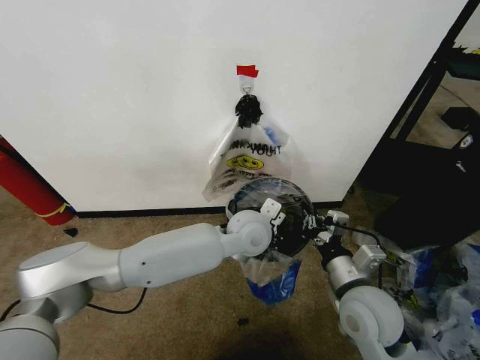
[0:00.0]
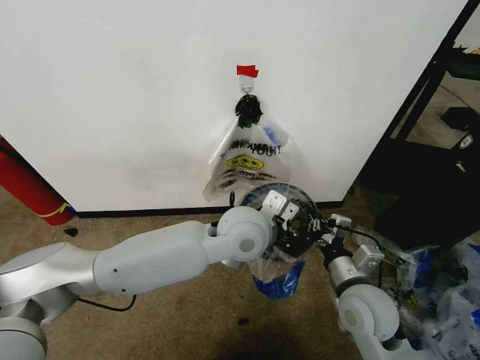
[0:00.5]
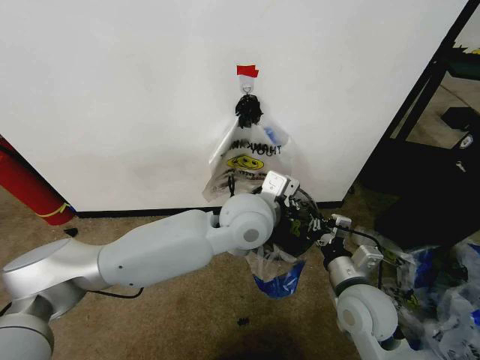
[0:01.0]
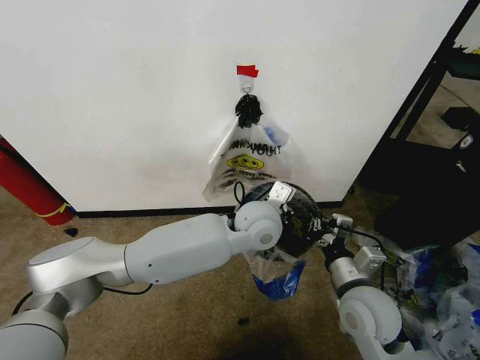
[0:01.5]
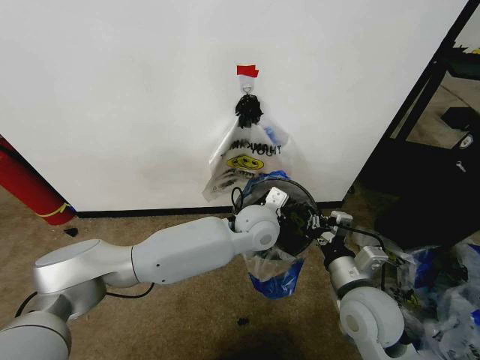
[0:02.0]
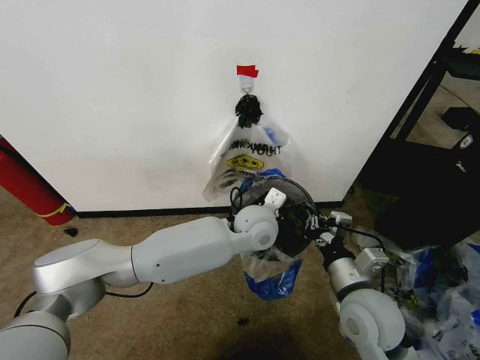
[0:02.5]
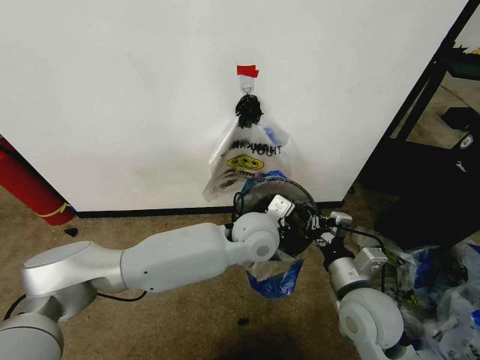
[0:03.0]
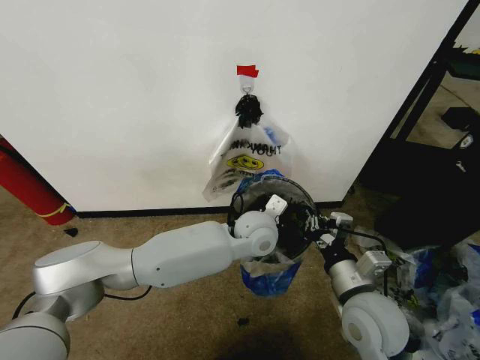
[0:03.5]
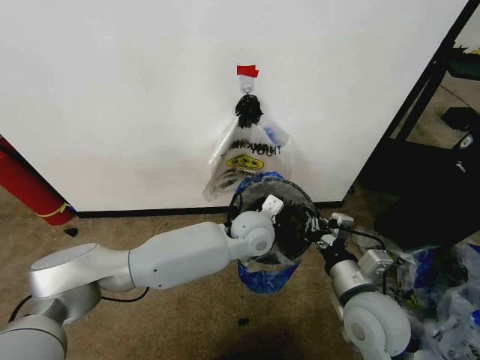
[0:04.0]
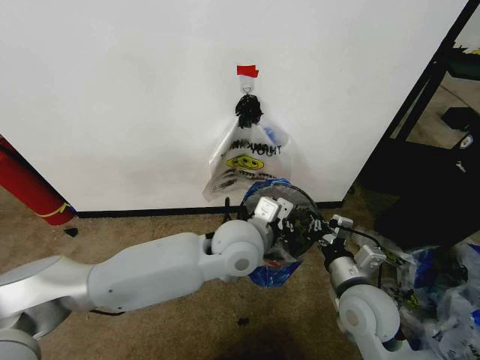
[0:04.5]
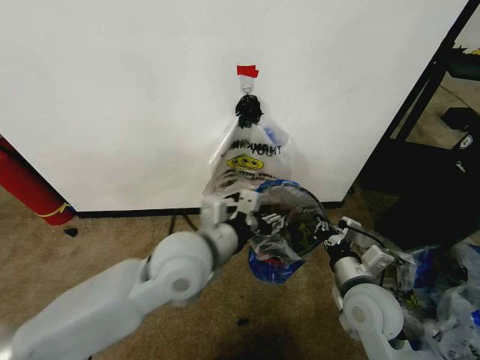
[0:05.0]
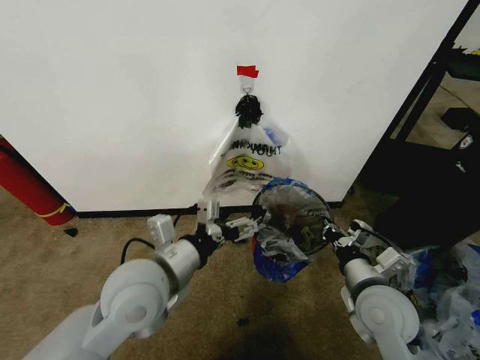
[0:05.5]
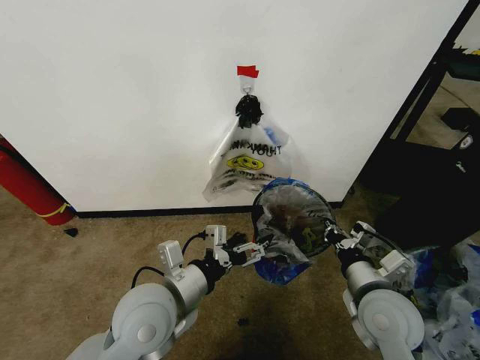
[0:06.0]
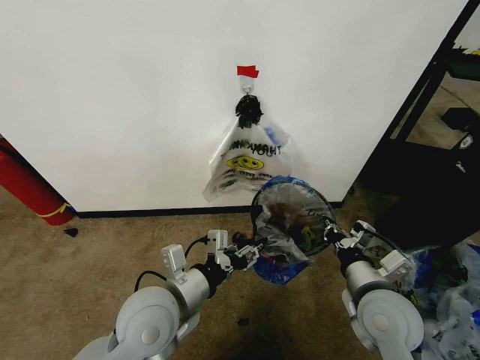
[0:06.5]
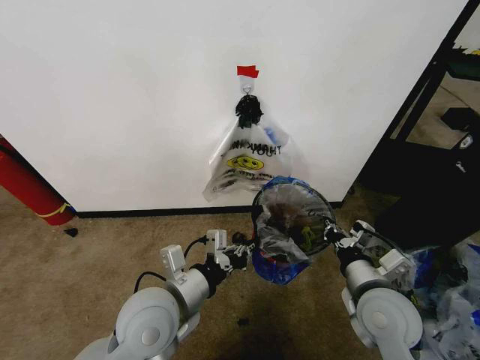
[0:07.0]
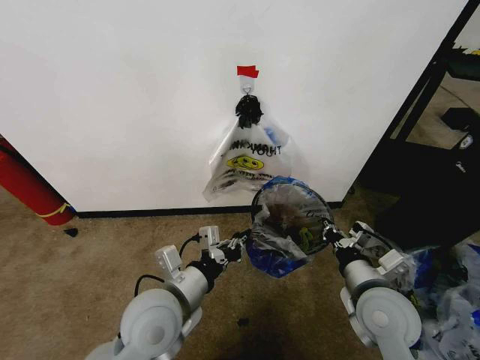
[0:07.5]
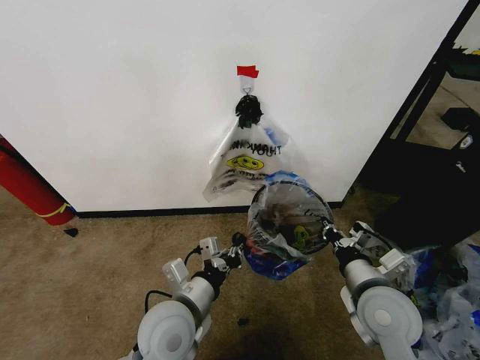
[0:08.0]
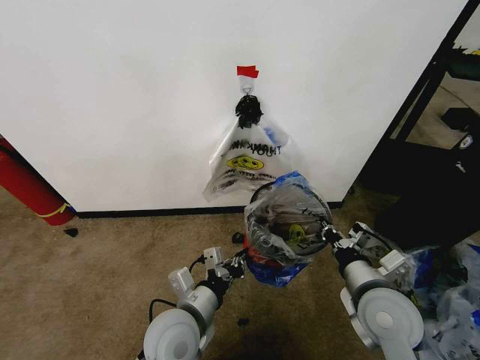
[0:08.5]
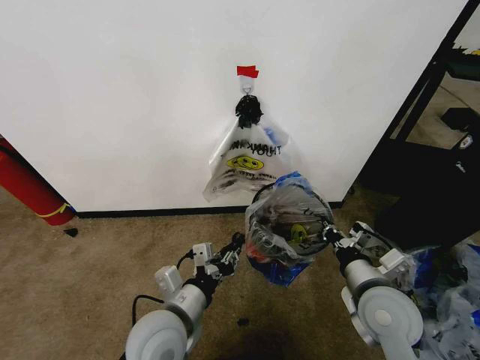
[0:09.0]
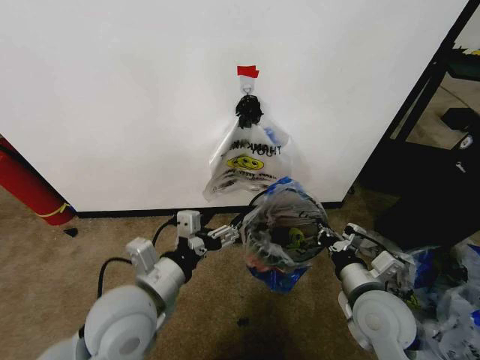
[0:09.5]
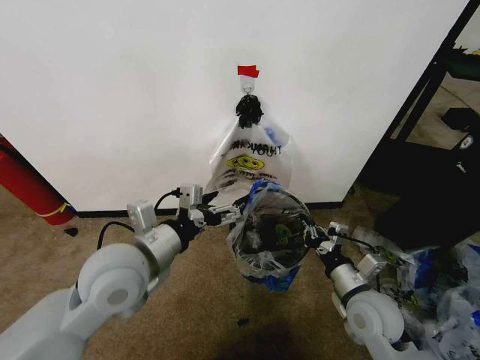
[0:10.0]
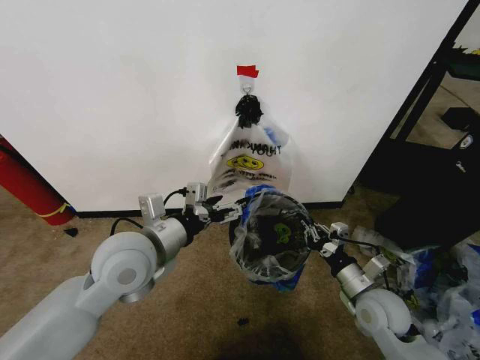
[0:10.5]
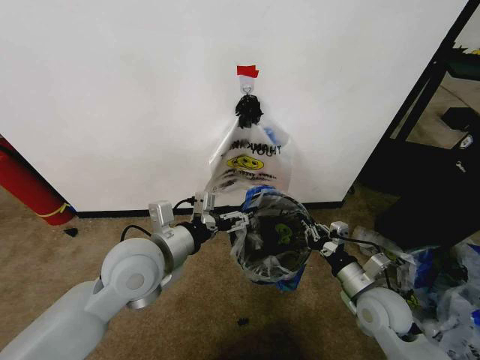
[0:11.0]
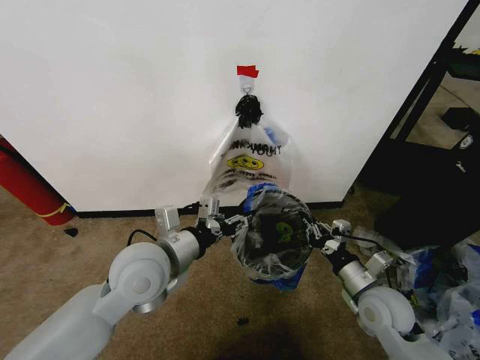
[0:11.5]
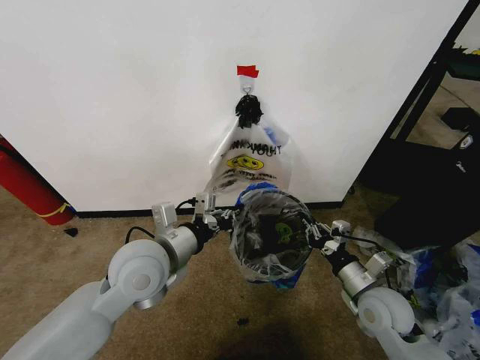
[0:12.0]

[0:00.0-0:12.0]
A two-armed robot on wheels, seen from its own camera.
Task of the whole recording: Pick up the garbage bag from the wall and place it over the trash bin.
0:00.0 to 0:02.0: The left gripper reaches roughly 10 cm upward, then returns.
0:02.0 to 0:04.0: The grippers make only small movements.
0:04.0 to 0:06.0: The left gripper travels to the left and backward by about 25 cm, and opens up.
0:06.0 to 0:08.0: The left gripper heads downward, covering roughly 5 cm, and closes.
0:08.0 to 0:10.0: The right gripper travels downward by about 5 cm, while the left gripper travels upward and to the left by some 15 cm, and opens.
0:10.0 to 0:12.0: The left gripper closes its fingers.

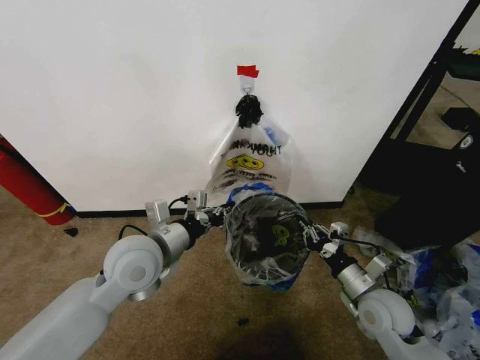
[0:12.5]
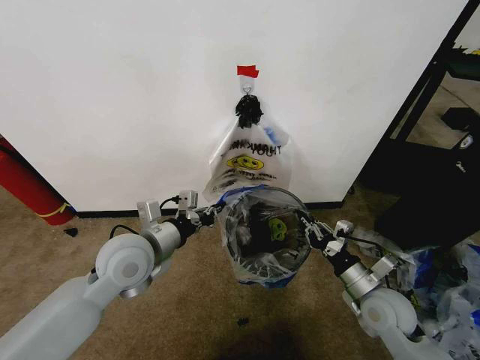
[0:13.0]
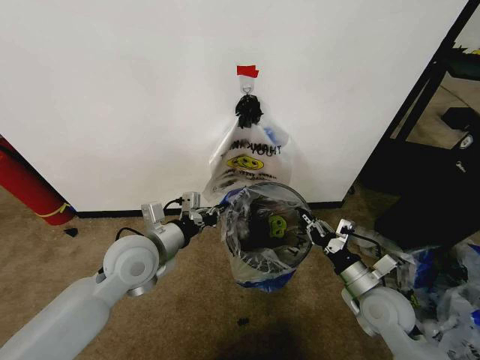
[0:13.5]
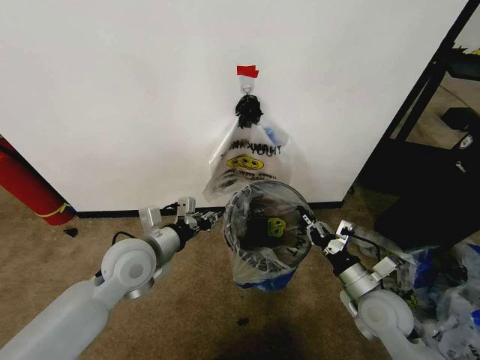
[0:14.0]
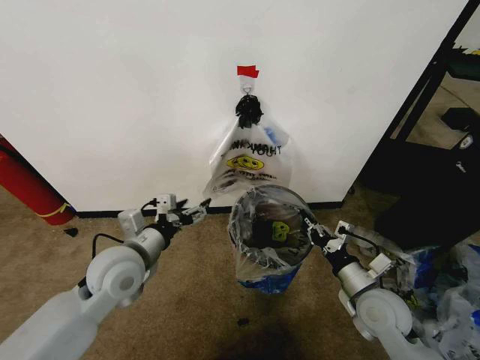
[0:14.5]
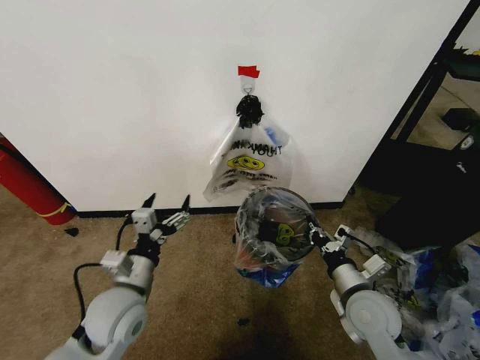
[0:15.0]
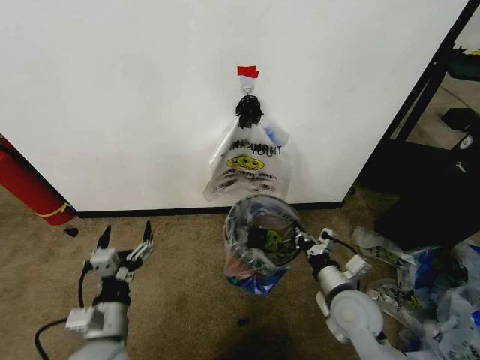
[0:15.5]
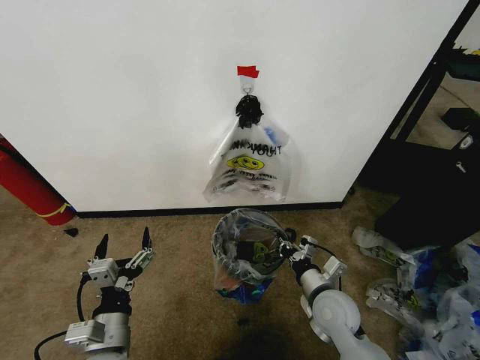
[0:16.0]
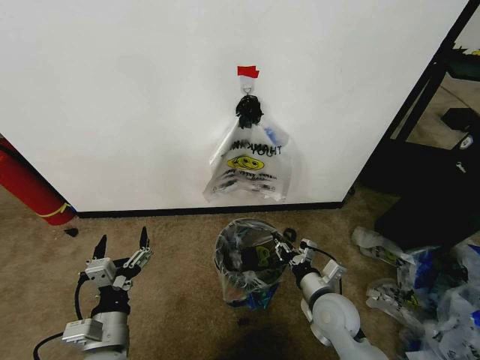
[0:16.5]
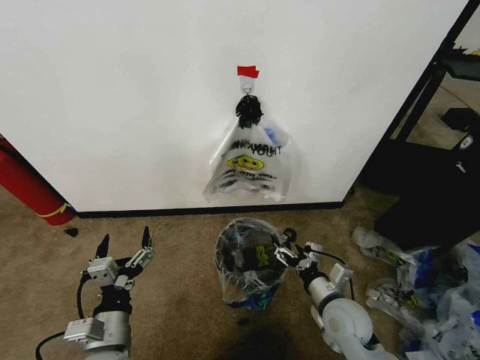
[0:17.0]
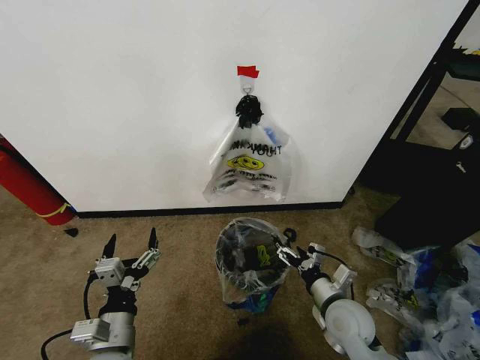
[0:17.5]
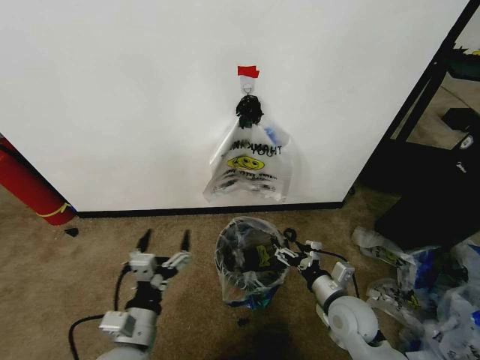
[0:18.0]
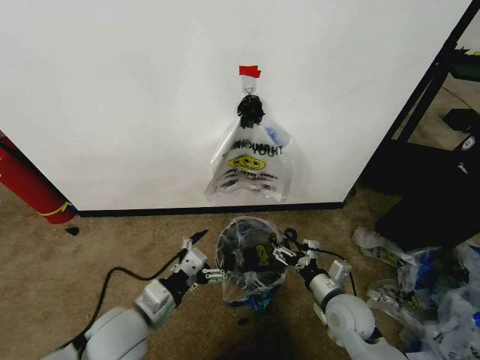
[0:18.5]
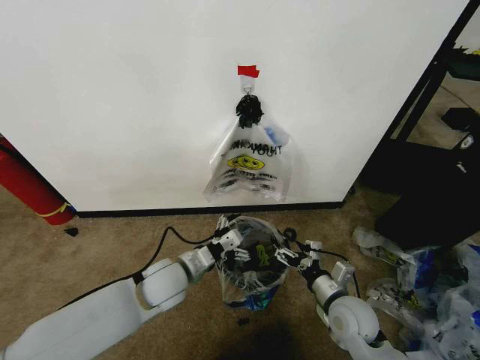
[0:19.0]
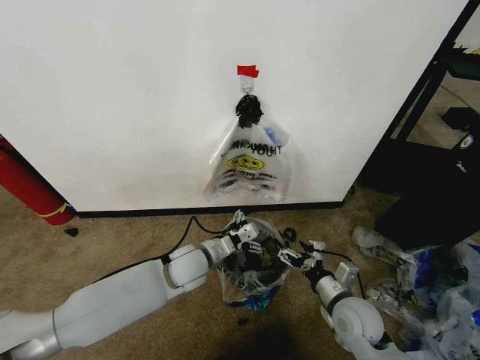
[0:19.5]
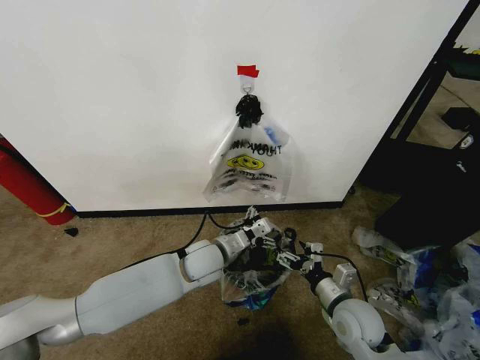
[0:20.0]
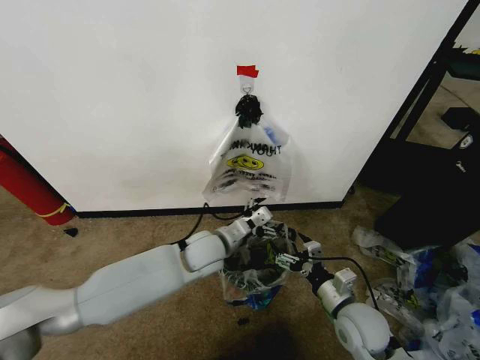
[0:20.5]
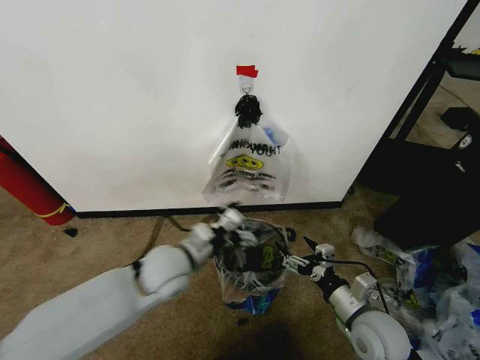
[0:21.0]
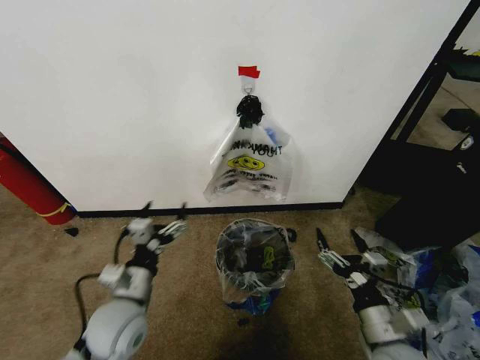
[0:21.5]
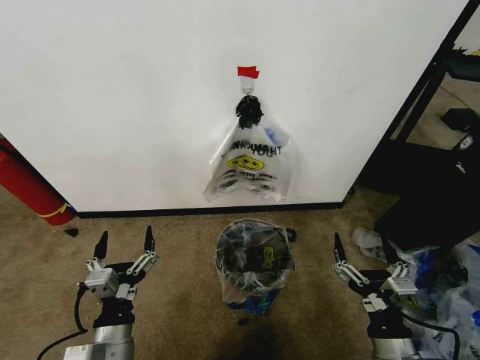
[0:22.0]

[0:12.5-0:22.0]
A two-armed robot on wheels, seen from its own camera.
Task of the whole recording: Pick up the garbage bag from the wall and place it over the trash bin.
0:12.5 to 0:14.5: The left gripper changes place by some 5 cm, and opens up.
0:14.5 to 0:16.5: The left gripper heads backward and downward, covering roughly 15 cm. The right gripper heads to the left, covering approximately 10 cm, and opens up.
0:16.5 to 0:18.0: The right gripper opens its fingers.
0:18.0 to 0:20.0: The left gripper shifts some 25 cm forward and to the right.
0:20.0 to 0:22.0: The left gripper goes some 25 cm backward and to the left. The right gripper travels backward by roughly 15 cm.

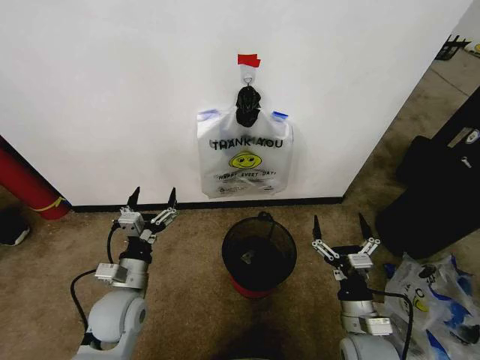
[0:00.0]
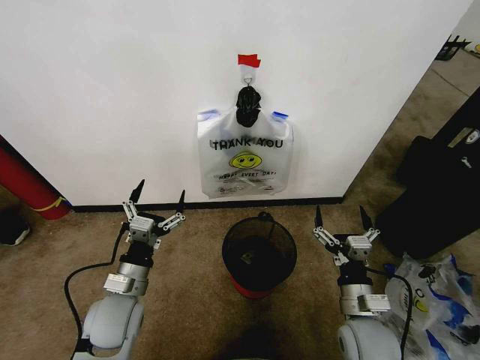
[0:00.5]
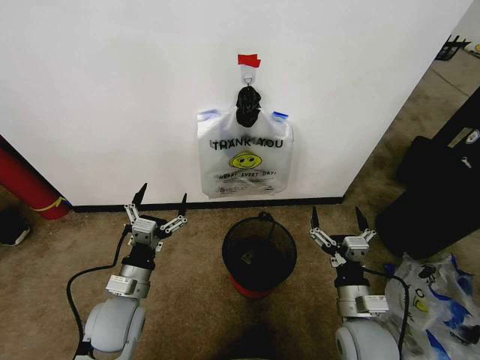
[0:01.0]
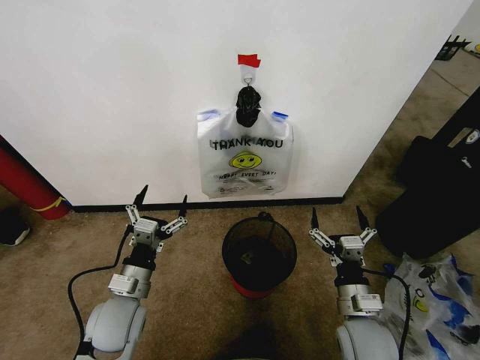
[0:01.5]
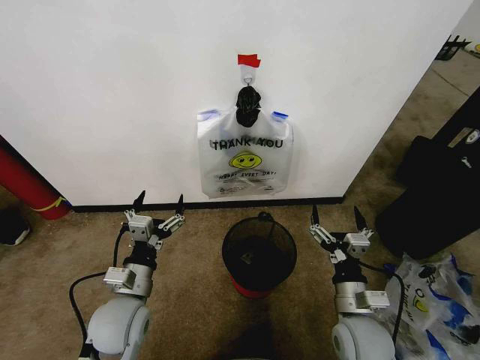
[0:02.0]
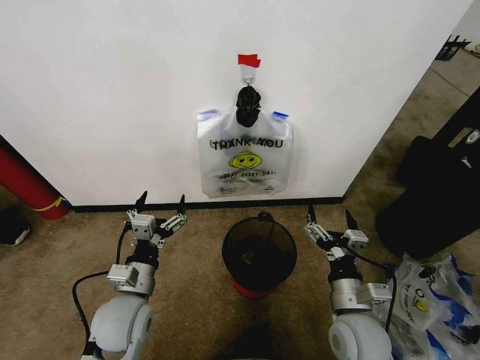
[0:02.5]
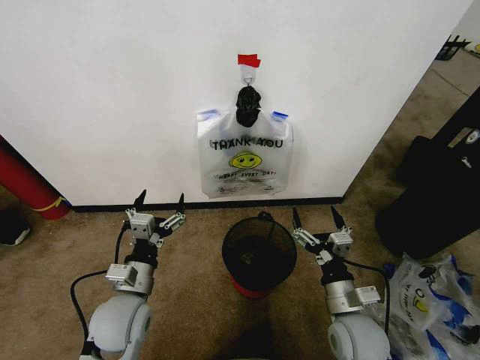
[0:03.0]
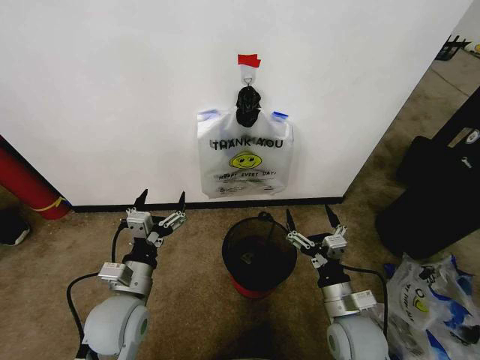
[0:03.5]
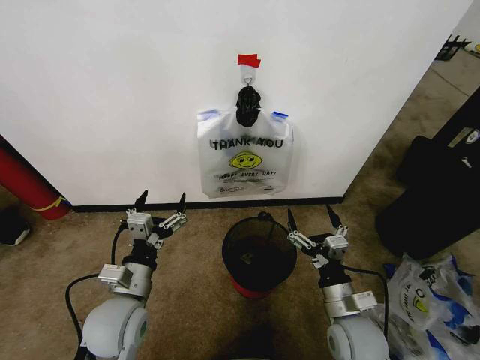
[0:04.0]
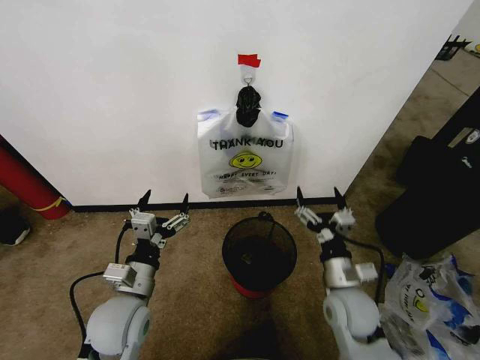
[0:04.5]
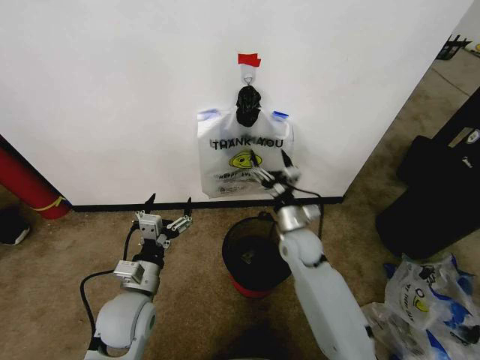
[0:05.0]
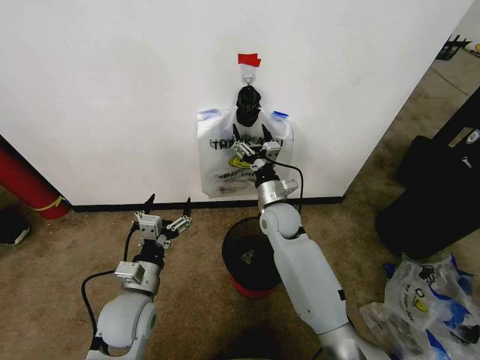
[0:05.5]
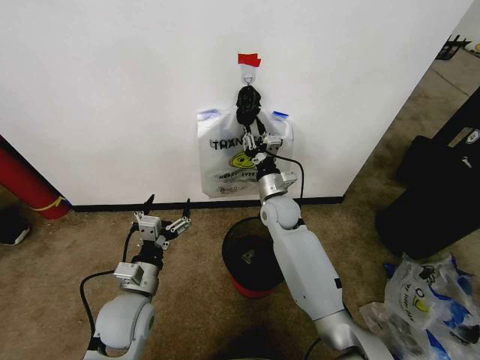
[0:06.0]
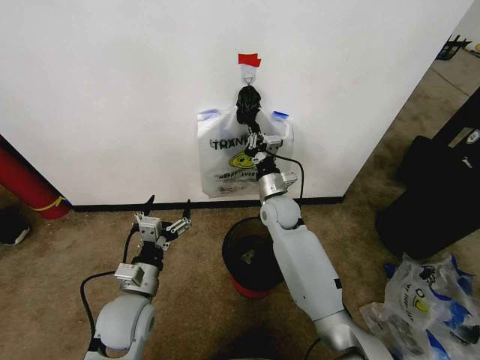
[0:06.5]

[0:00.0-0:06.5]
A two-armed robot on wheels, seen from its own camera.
Task of the whole recording: Pick up the garbage bag from the wall and place it over the trash bin.
0:02.0 to 0:04.5: The right gripper goes about 5 cm forward.
0:04.5 to 0:06.5: The right gripper moves forward and to the left, approximately 25 cm, and closes up.
